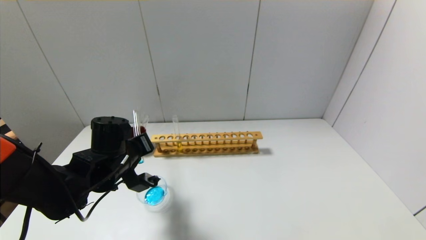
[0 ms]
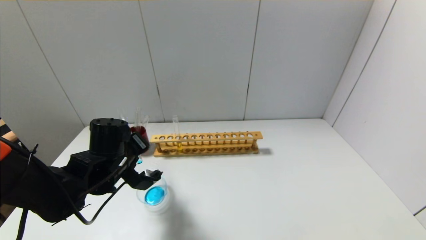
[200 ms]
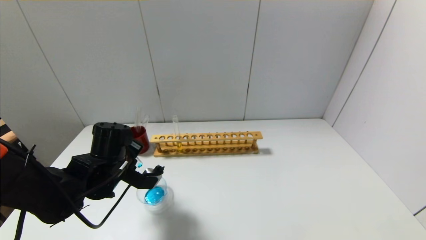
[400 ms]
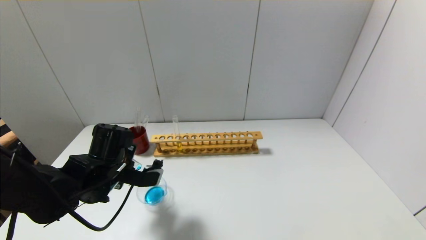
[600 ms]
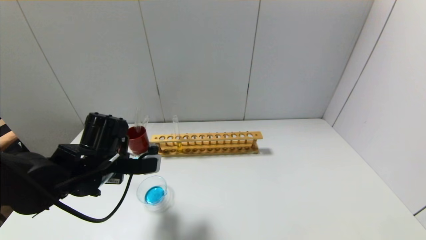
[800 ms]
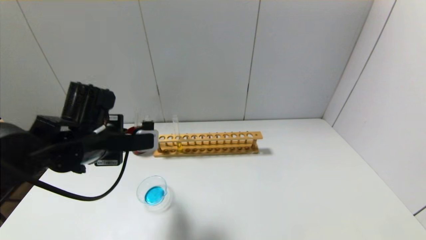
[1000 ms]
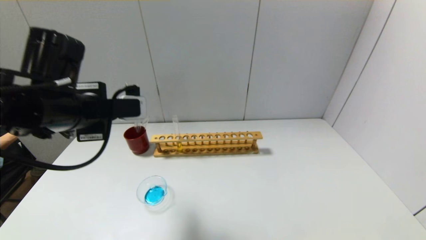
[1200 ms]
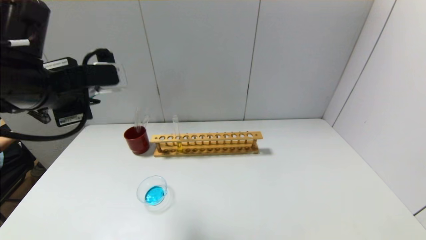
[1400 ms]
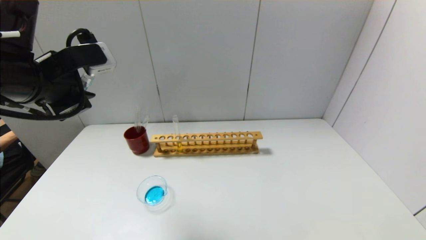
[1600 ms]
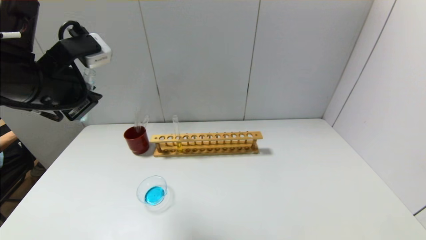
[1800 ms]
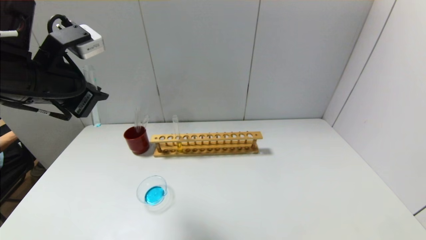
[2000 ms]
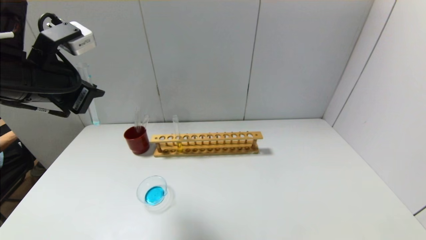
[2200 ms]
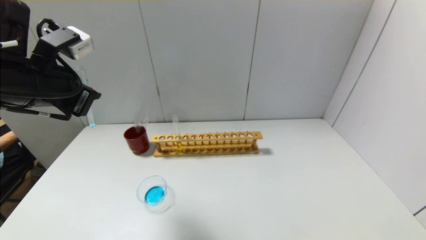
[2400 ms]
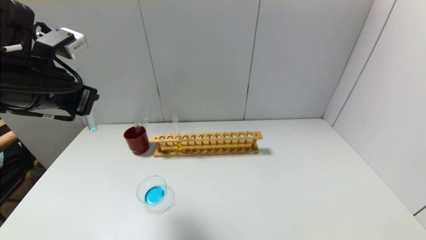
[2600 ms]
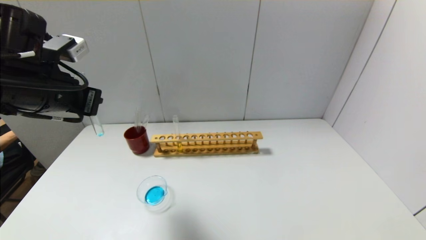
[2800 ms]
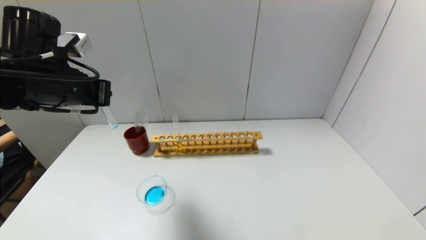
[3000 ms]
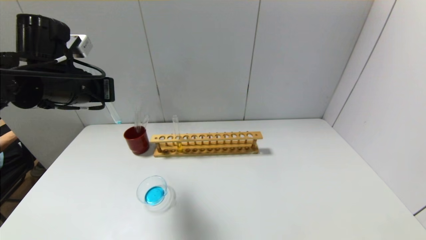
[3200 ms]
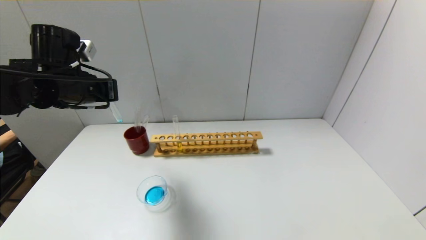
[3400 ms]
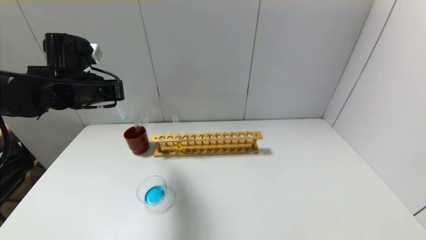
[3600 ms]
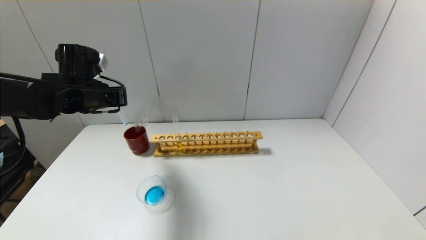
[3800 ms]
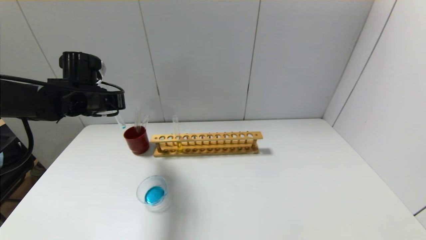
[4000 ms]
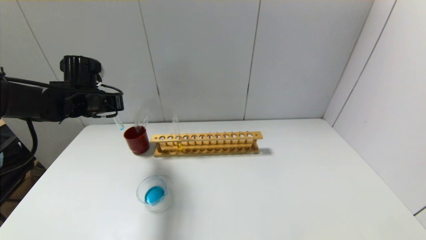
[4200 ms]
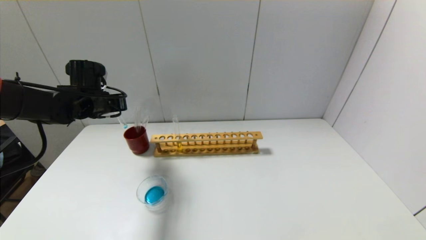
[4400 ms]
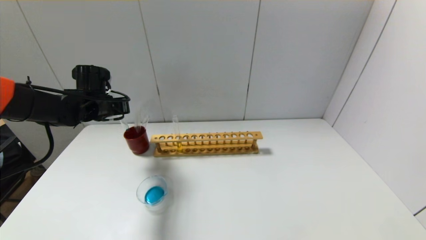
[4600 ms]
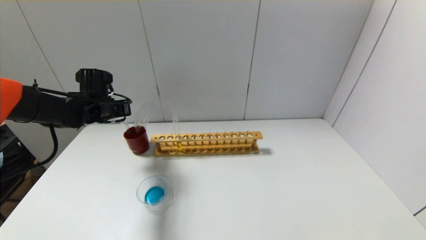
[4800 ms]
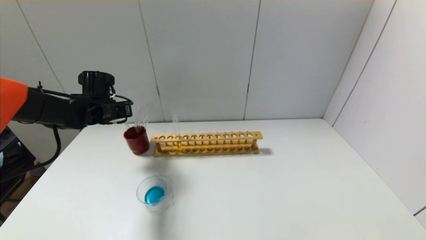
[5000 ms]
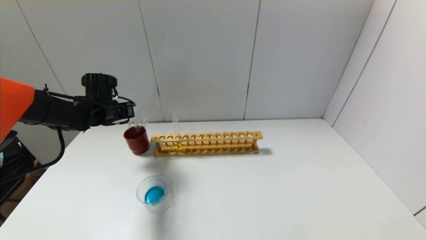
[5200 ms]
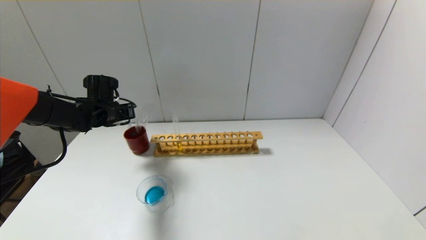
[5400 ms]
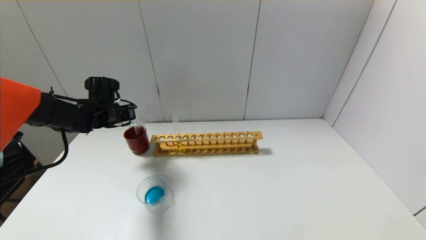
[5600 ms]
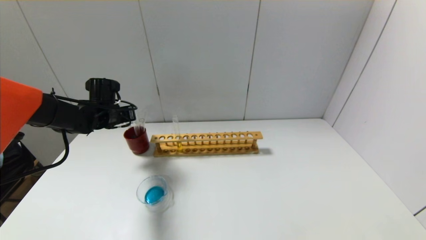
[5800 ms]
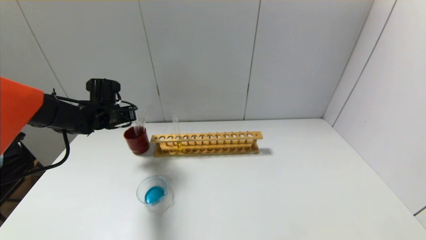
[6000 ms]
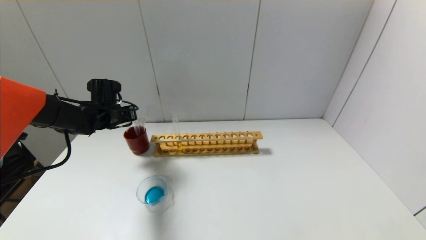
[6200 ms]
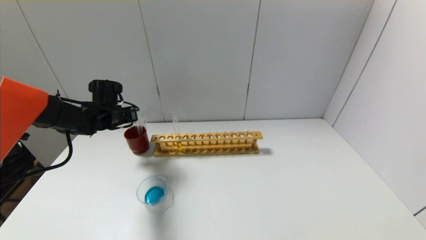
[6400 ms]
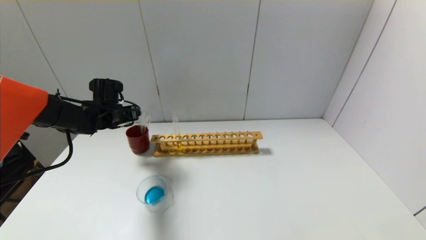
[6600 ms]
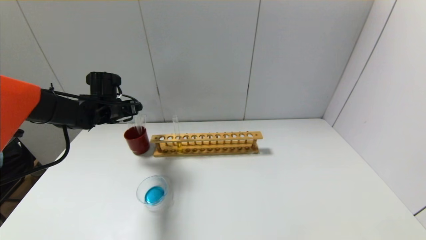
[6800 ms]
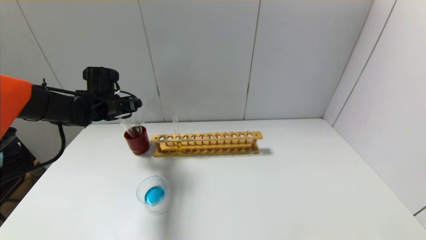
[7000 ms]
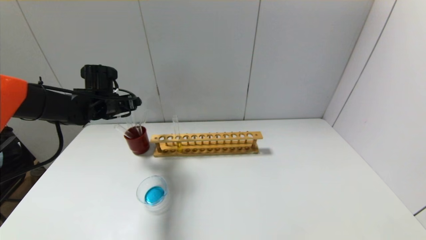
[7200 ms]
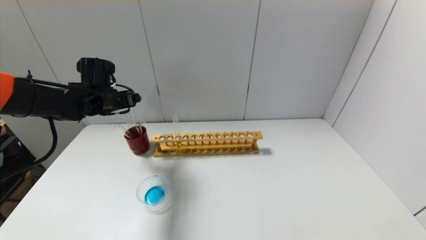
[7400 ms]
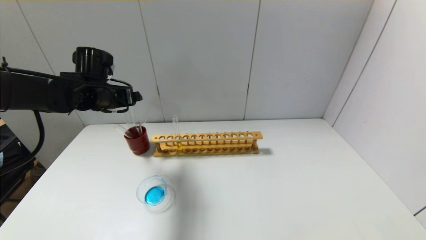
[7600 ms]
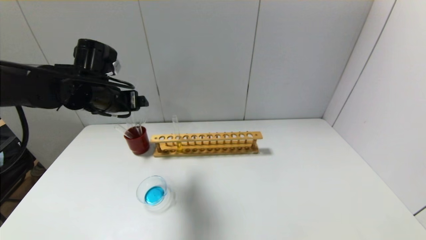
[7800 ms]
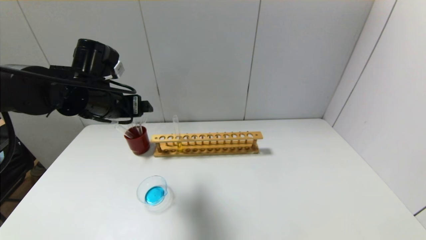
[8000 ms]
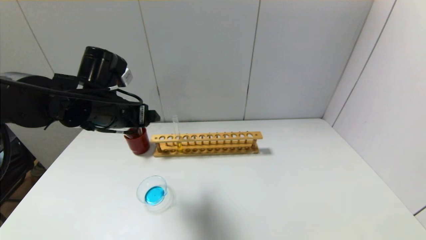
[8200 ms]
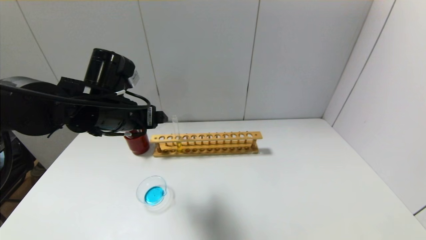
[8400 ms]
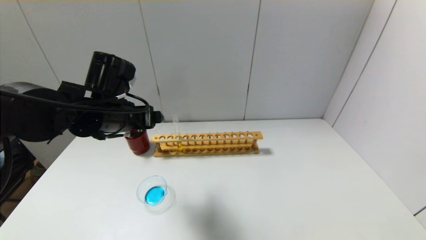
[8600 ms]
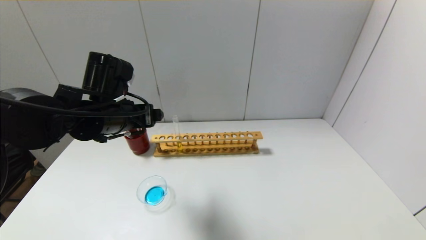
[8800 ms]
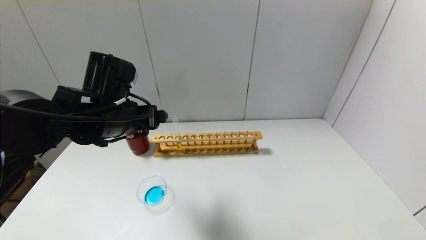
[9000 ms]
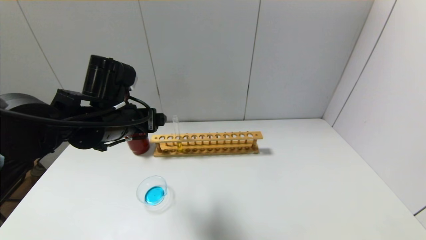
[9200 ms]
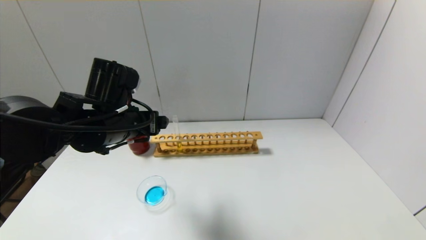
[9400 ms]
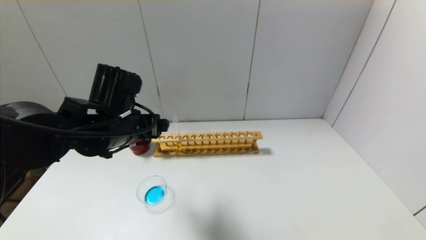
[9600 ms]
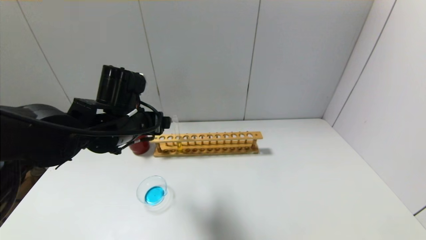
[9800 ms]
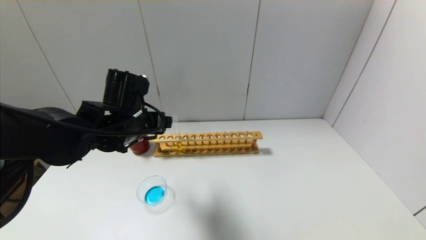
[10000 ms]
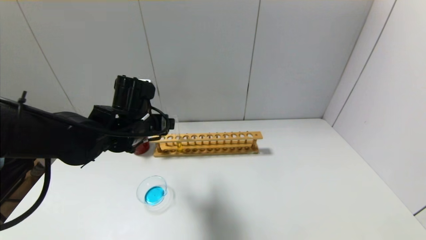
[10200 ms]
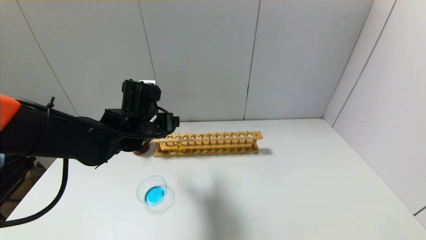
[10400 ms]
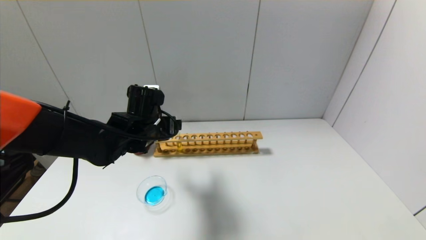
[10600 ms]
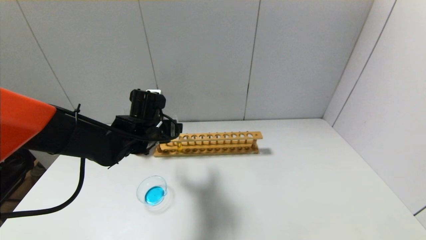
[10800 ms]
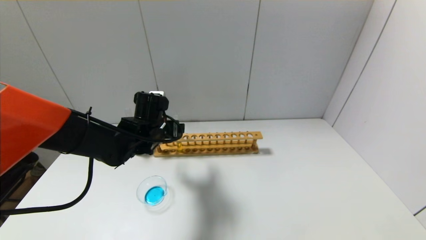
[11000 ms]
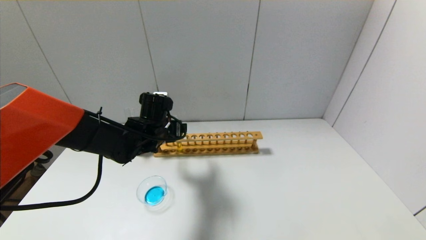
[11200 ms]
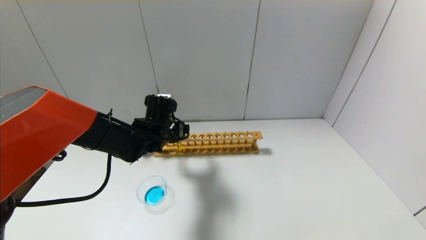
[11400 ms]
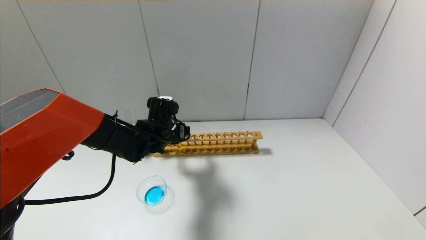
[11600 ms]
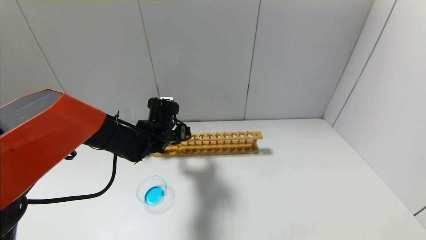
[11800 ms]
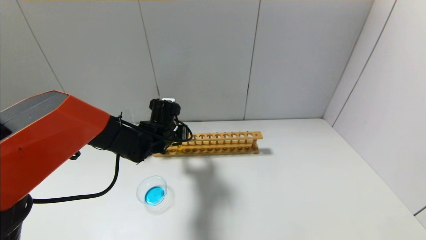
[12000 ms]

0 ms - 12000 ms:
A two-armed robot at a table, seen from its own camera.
Step, 600 ms - 6400 ms: Place the test tube into the brown cup with the left gripper.
0 ms - 1600 ms: The left gripper moves upward, some 20 cm.
3000 ms - 4400 ms: The left gripper shifts about 15 cm forward and downward.
4400 ms - 6000 ms: The left gripper is displaced downward by roughly 5 cm.
6000 ms - 7600 ms: The left gripper travels upward by some 10 cm, and opens its fingers.
7600 ms - 9000 ms: The left gripper travels backward and to the right by approximately 15 cm.
9000 ms - 10400 ms: The left gripper travels downward by about 5 cm.
10400 ms - 12000 ms: The left gripper goes about 10 cm downward and forward, and closes up.

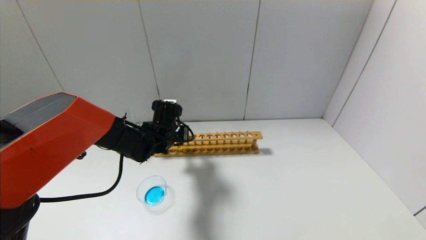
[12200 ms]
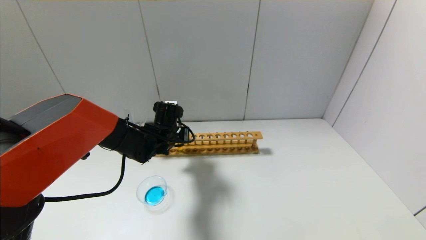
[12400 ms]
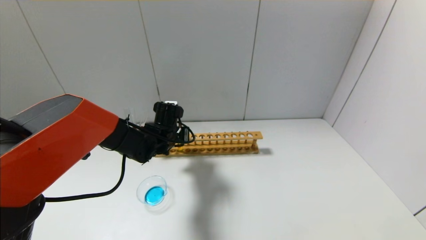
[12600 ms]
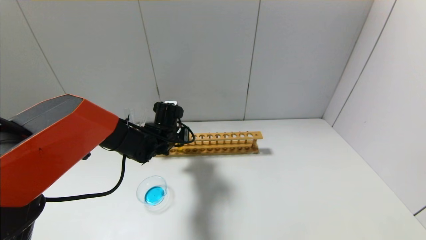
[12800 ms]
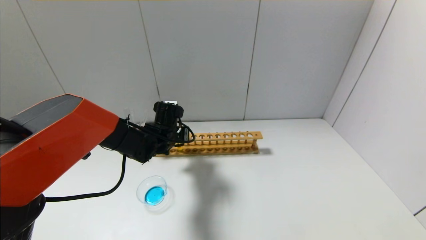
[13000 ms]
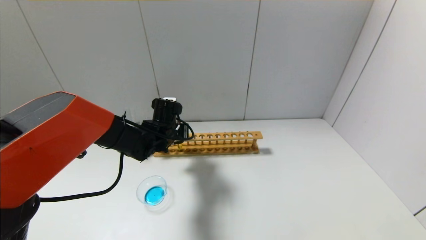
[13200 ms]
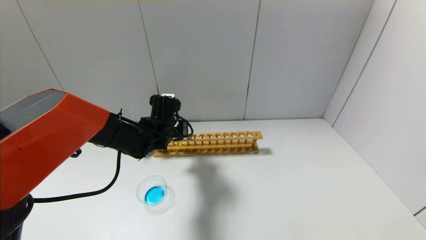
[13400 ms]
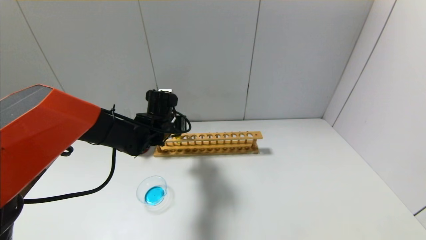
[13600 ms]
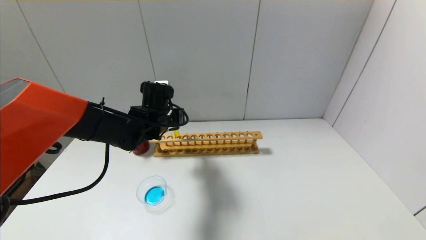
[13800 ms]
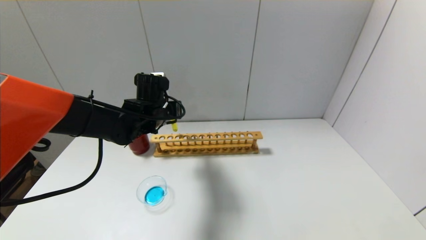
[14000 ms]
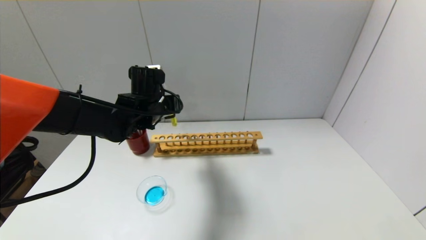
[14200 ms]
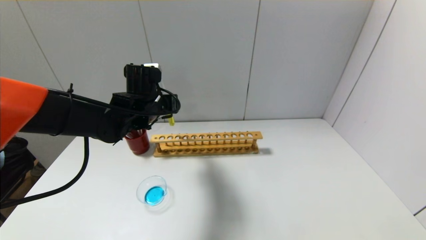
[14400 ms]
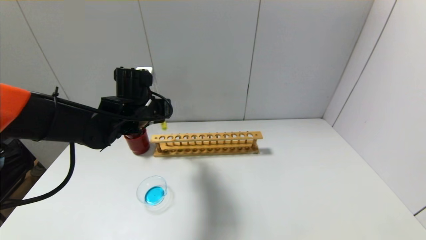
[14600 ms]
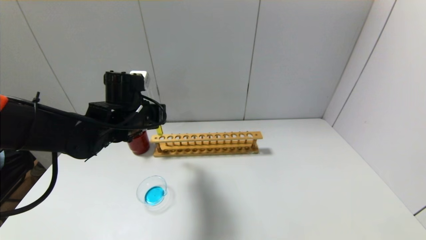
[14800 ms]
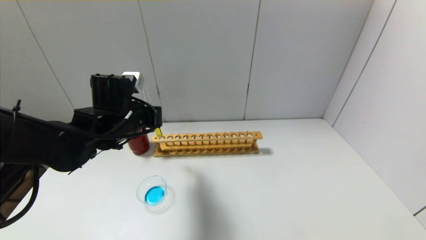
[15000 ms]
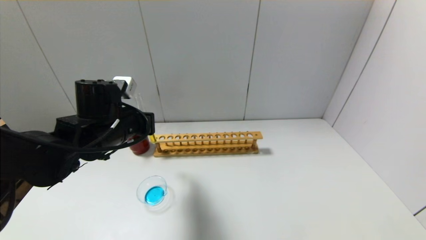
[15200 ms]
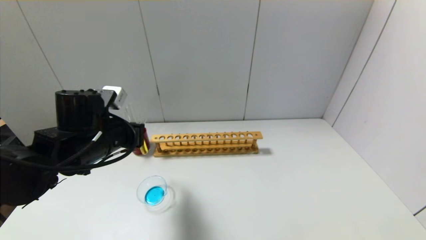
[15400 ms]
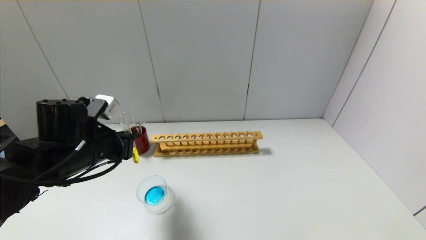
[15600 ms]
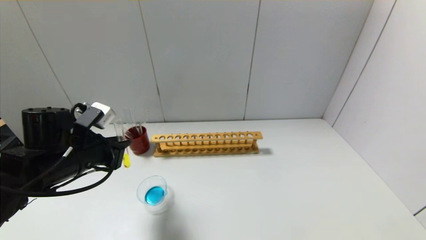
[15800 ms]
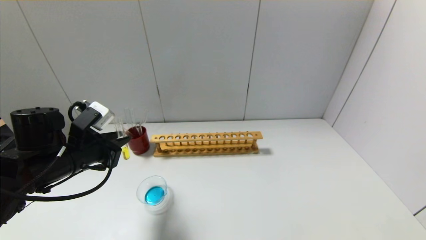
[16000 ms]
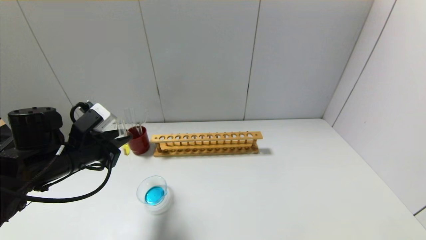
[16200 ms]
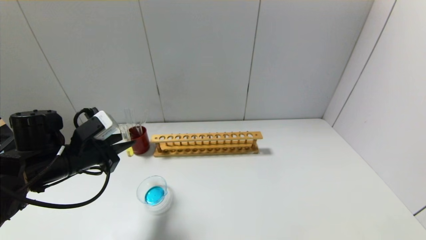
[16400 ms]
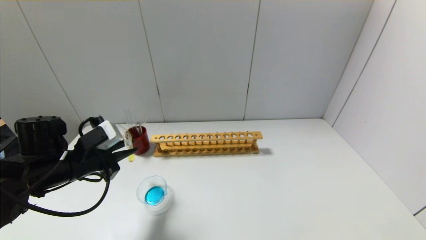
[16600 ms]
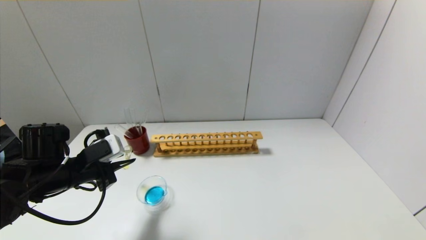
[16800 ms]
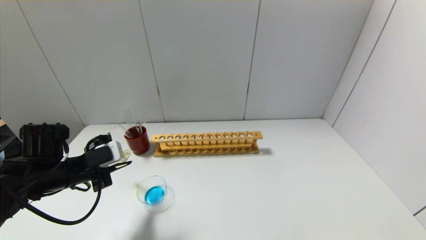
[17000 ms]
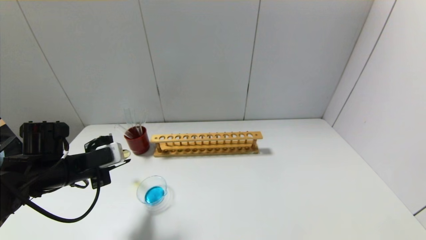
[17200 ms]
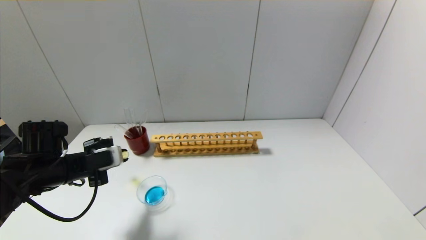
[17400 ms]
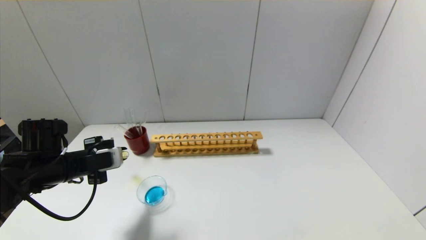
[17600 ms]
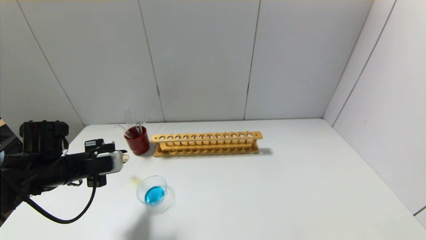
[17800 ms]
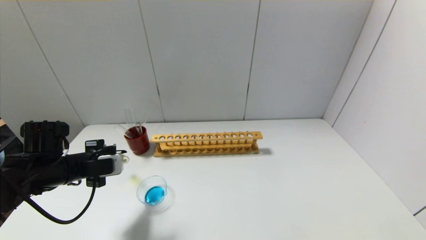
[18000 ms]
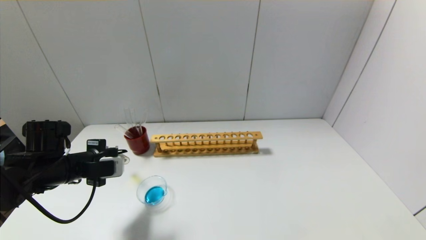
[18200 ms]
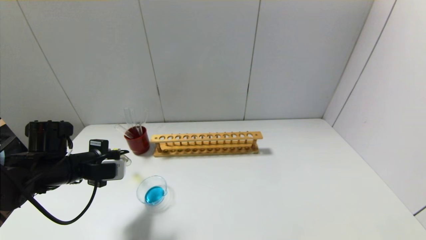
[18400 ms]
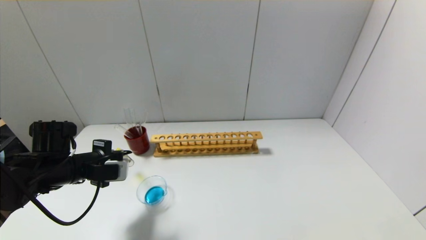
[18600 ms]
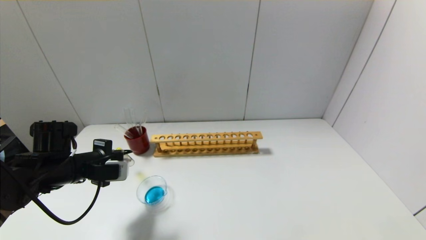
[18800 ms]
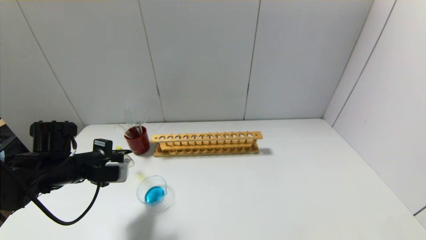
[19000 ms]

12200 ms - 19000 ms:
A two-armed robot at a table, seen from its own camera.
12200 ms - 13600 ms: There are only small adjustments of the grippers.
13600 ms - 15000 ms: The left gripper is displaced backward, upward and to the left by some 10 cm.
15000 ms - 16200 ms: The left gripper heads to the left and backward, covering some 10 cm.
17600 ms - 19000 ms: The grippers move only a little.
